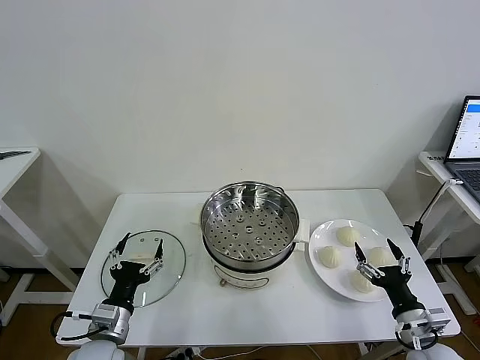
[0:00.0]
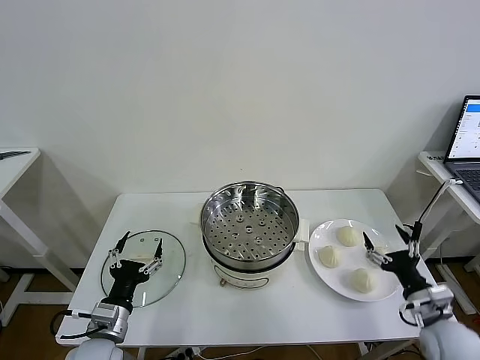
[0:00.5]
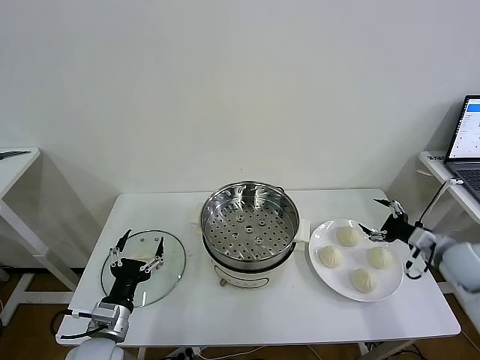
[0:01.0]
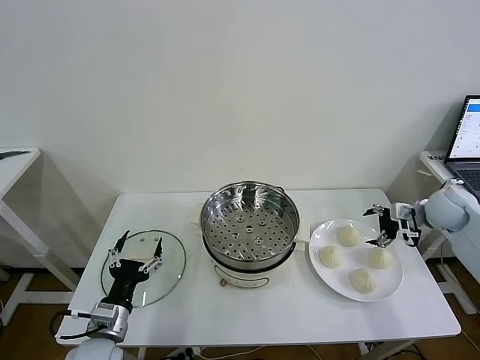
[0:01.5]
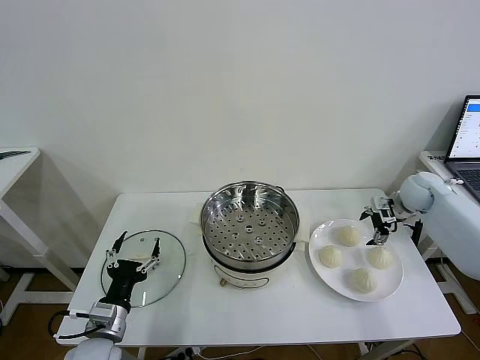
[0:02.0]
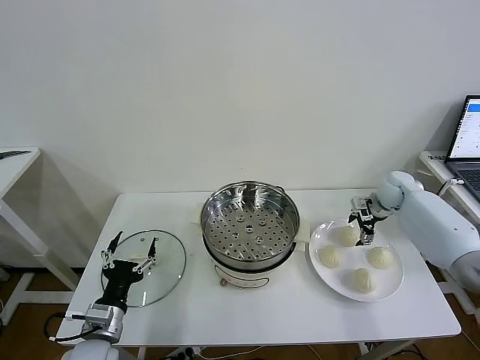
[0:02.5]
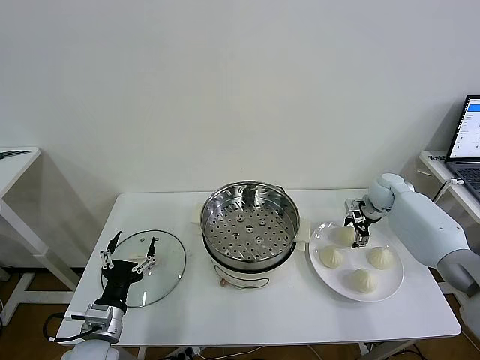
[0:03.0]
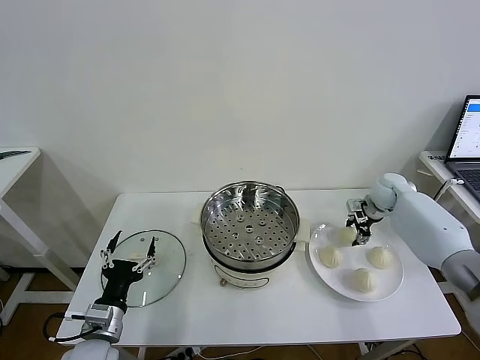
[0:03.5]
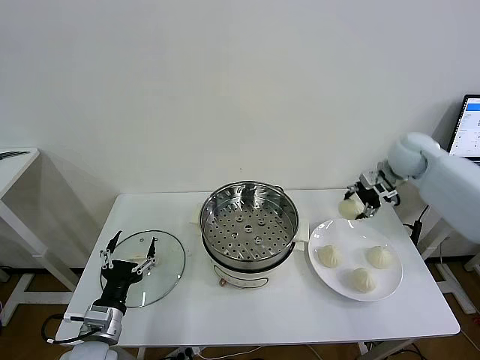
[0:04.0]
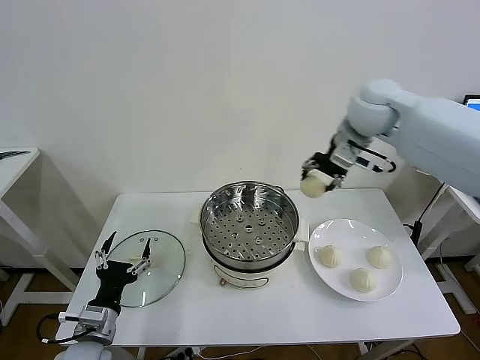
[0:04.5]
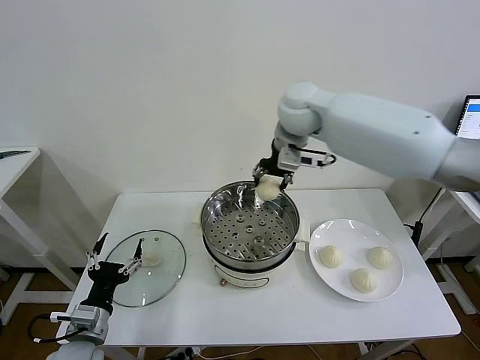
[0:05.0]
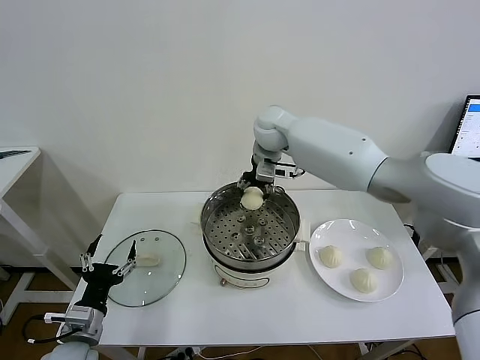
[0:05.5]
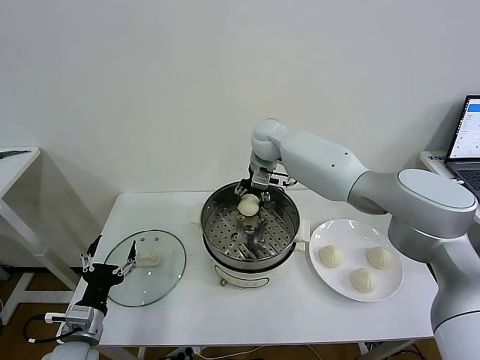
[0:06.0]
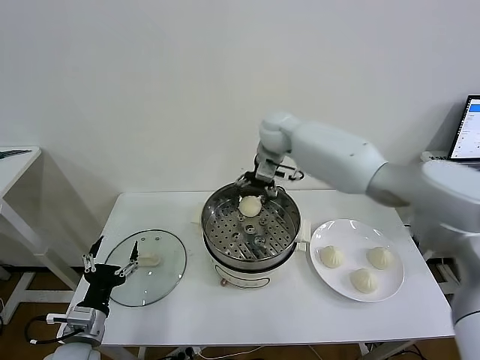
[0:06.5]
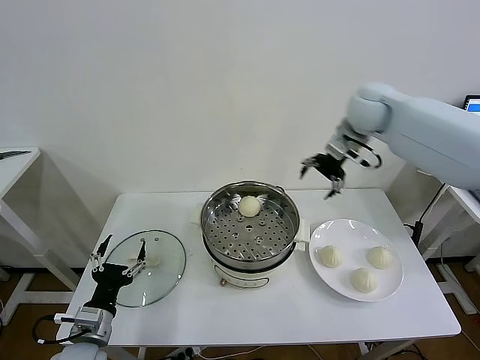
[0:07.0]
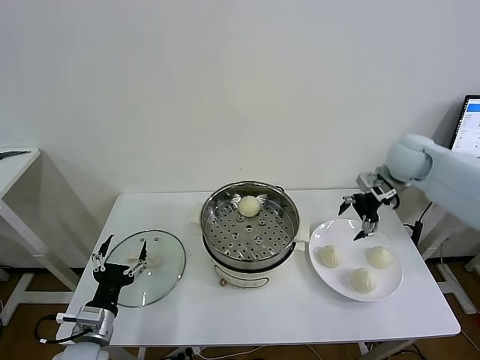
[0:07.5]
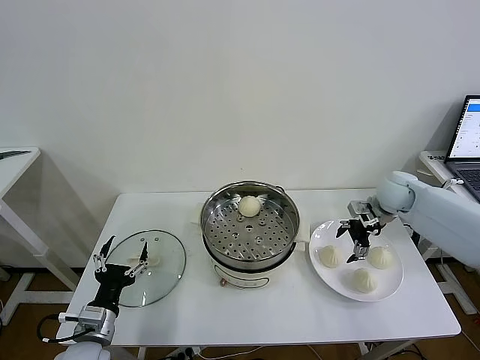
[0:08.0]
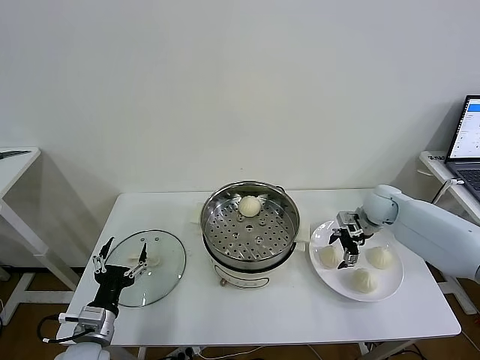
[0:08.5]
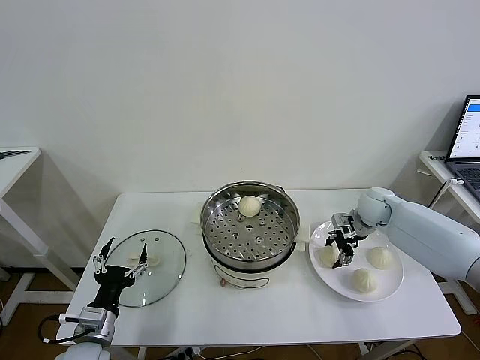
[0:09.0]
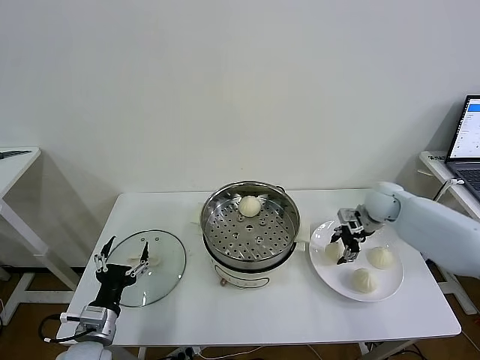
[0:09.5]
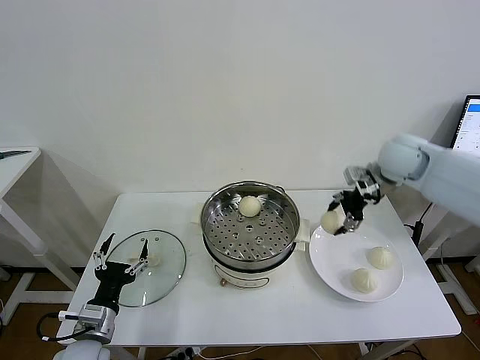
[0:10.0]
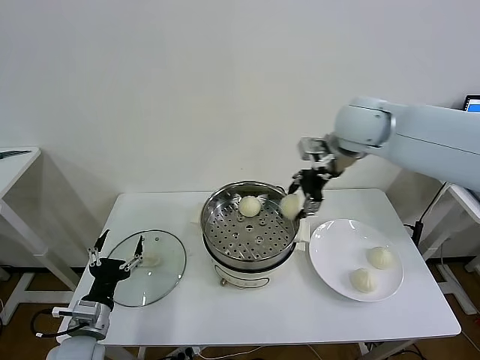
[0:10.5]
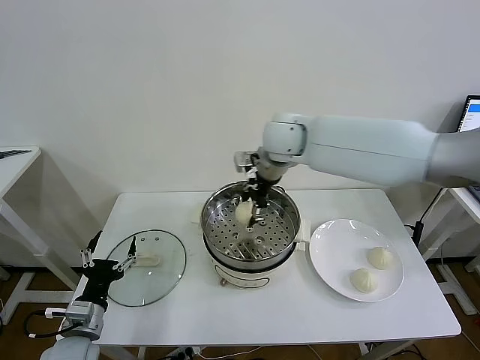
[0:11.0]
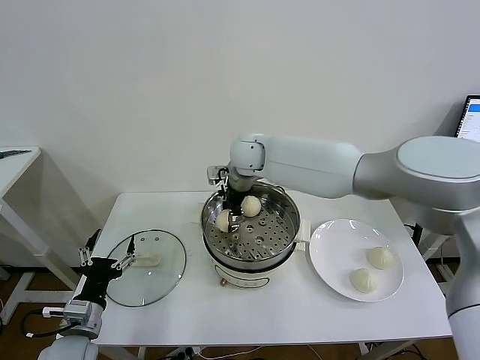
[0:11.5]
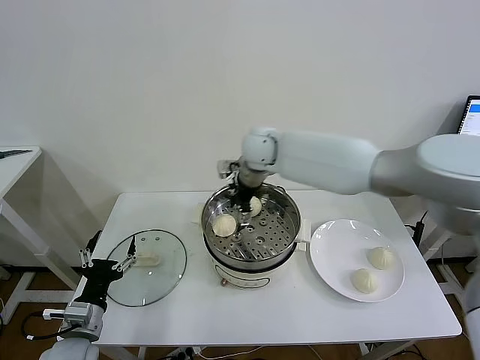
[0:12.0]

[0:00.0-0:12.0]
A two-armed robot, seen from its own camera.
Task of the whole recording: take steamed baozi put them in steamer then cover it.
Step, 0:00.0 to 0:03.0: Grasp the baozi in the plate with right gripper.
Step, 0:03.5 to 0:06.0: Place the baozi on the steamer with right gripper.
Step, 0:06.5 to 0:08.5: Grasp the baozi in the plate with right gripper.
Step, 0:09.0 to 0:11.5: Place the baozi on the steamer with right gripper.
0:02.0 to 0:04.0: The right gripper travels upward and to the left by about 15 cm, and closes.
0:04.0 to 0:06.0: The right gripper is displaced to the left by roughly 30 cm, and opens its fingers.
0:06.0 to 0:08.0: The right gripper goes roughly 30 cm to the right, and opens.
0:08.0 to 0:10.0: The right gripper heads upward, covering approximately 15 cm, and closes its fingers.
0:10.0 to 0:12.0: The right gripper shifts about 25 cm to the left, and opens up.

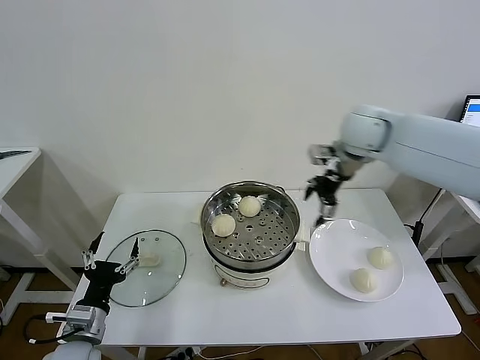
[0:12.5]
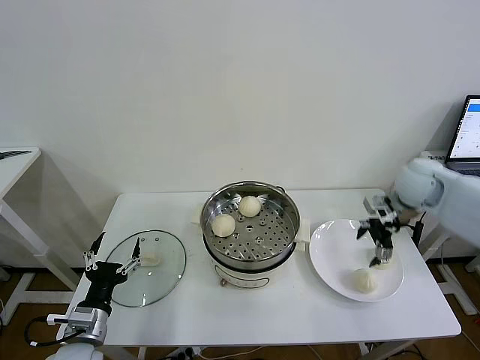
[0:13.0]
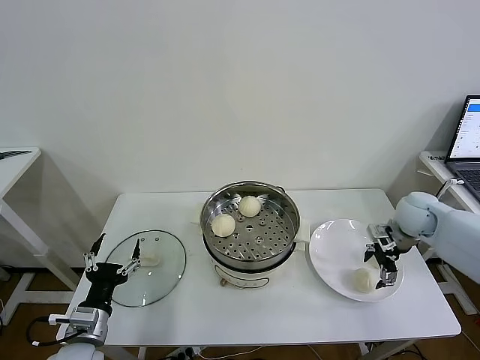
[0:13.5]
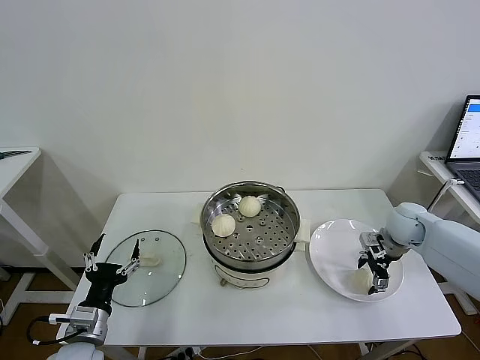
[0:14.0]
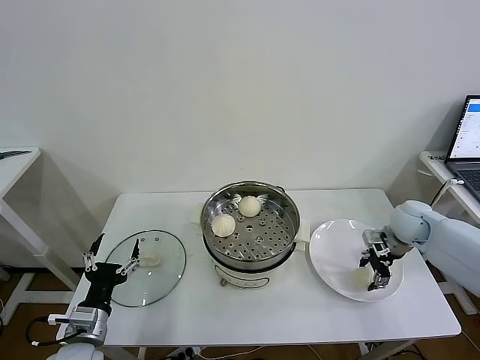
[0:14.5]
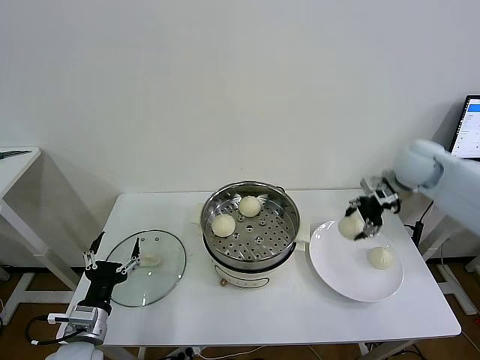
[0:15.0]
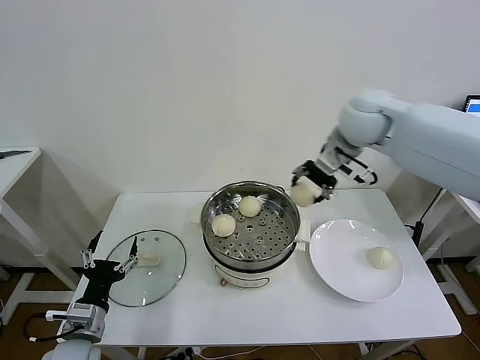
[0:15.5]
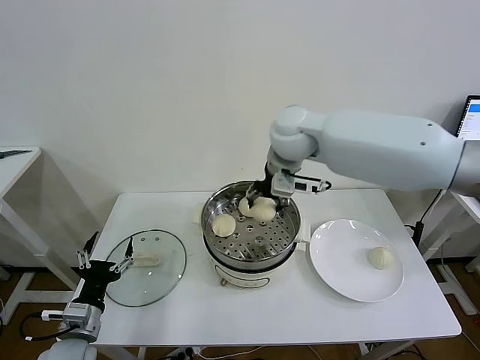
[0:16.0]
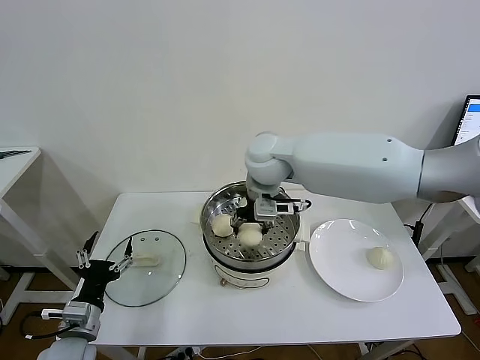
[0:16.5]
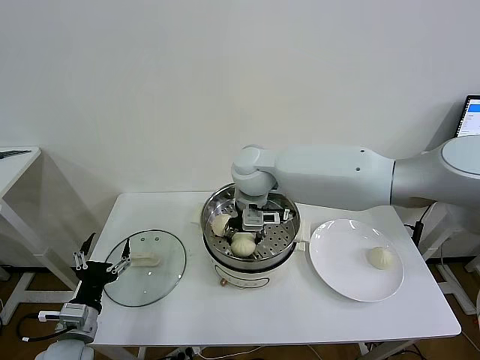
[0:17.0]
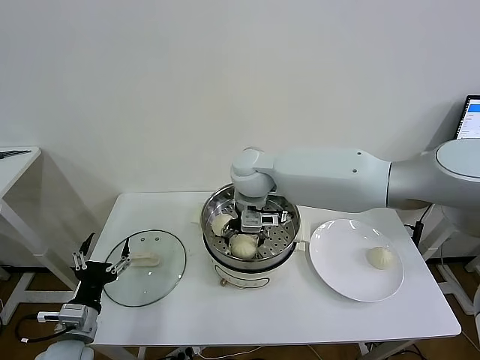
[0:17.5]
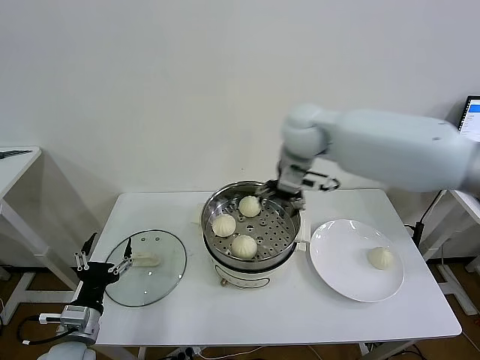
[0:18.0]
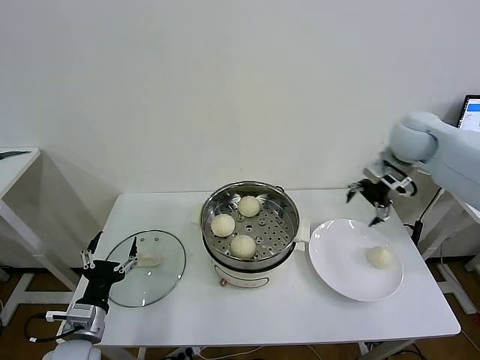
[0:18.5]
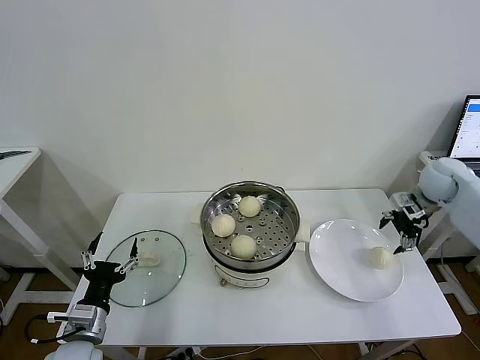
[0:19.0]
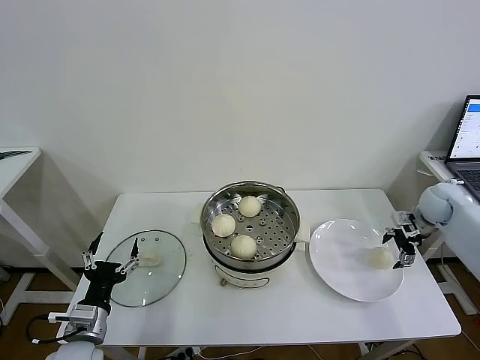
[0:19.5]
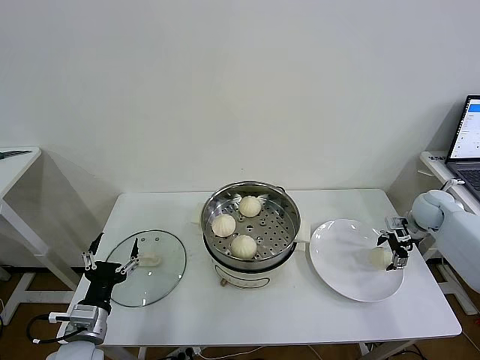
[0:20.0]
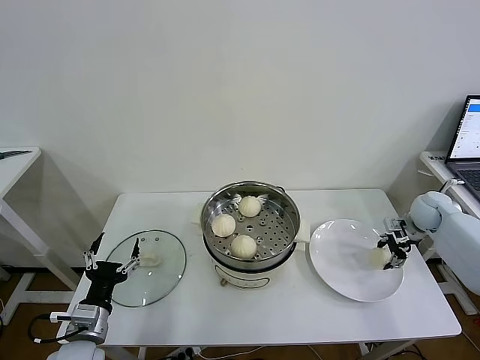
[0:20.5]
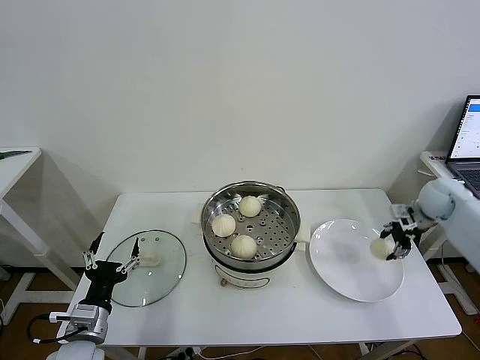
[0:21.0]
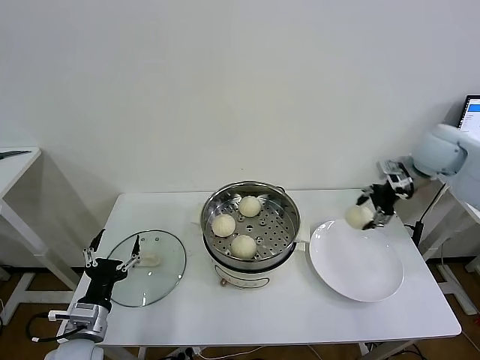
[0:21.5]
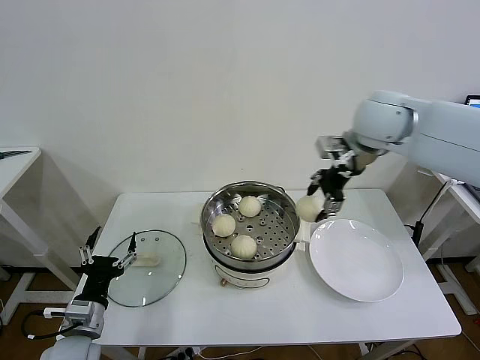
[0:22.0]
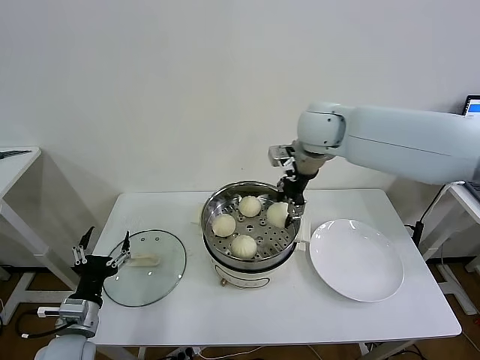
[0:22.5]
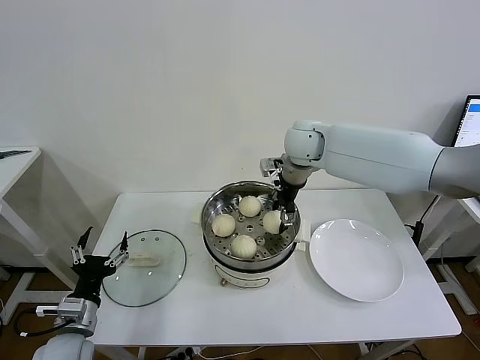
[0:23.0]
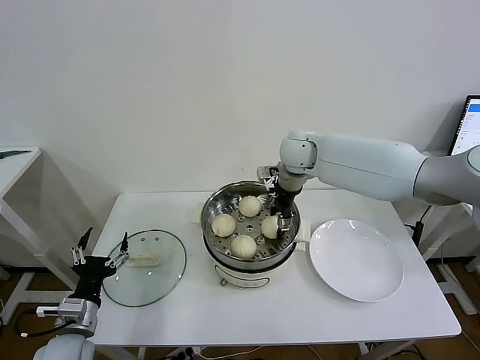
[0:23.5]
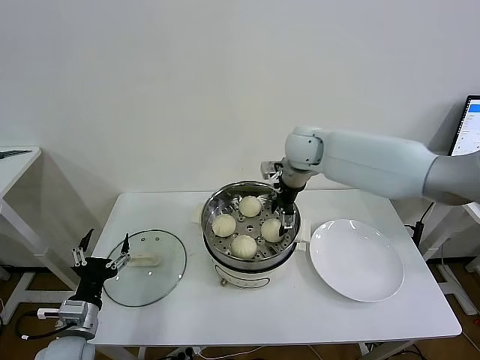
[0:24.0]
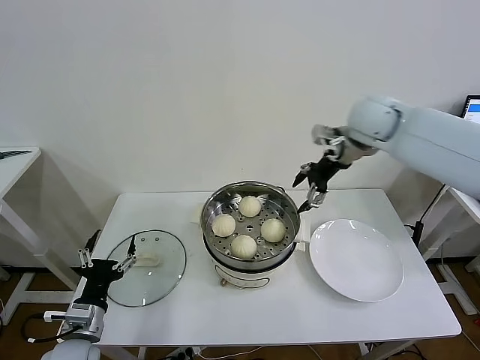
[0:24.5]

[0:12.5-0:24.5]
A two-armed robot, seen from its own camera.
Task of the whole recording: take steamed baozi put them in steamer then cover it.
Step, 0:12.5 to 0:14.0: Grasp the baozi in the plate with right gripper.
Step, 0:14.5 to 0:17.5: Place the baozi on the steamer with right gripper.
Step, 0:18.0 to 0:20.0: Grasp the baozi in the plate with right gripper.
Step, 0:20.5 to 0:23.5: Place the baozi on the steamer with right gripper.
0:12.5 to 0:14.5: The right gripper shifts roughly 25 cm downward and to the right, and closes its fingers.
0:14.5 to 0:16.5: The right gripper shifts approximately 40 cm to the left and upward.
0:16.5 to 0:18.5: The right gripper shifts about 30 cm to the right, and opens.
0:18.5 to 0:20.5: The right gripper is displaced downward and to the right by approximately 25 cm, and closes its fingers.
0:20.5 to 0:22.5: The right gripper goes some 40 cm to the left and upward.
0:22.5 to 0:24.5: The right gripper is displaced to the right by about 10 cm, and opens its fingers.

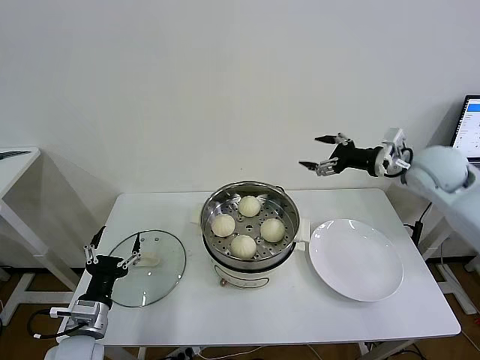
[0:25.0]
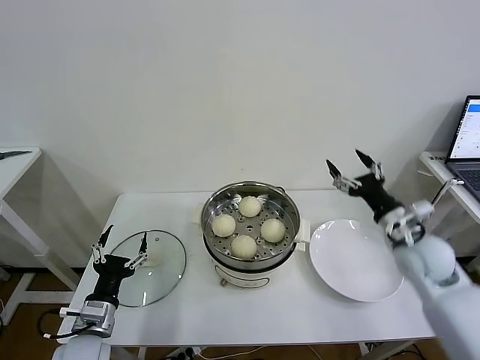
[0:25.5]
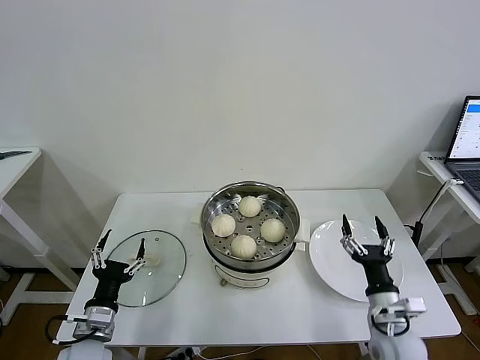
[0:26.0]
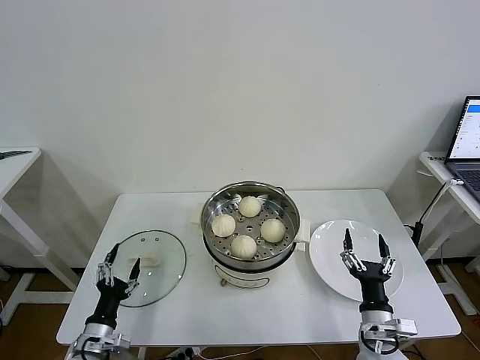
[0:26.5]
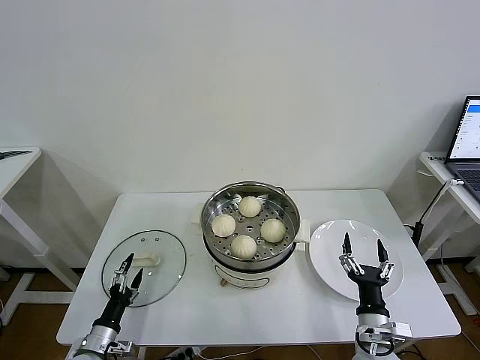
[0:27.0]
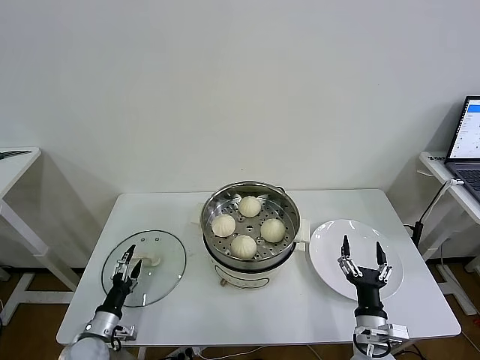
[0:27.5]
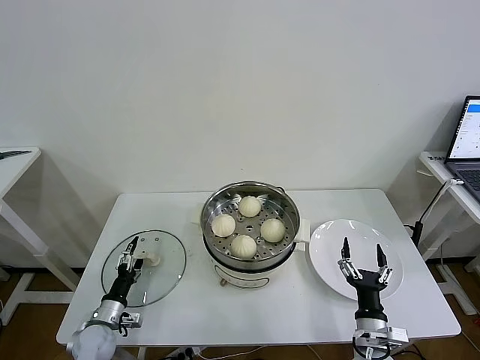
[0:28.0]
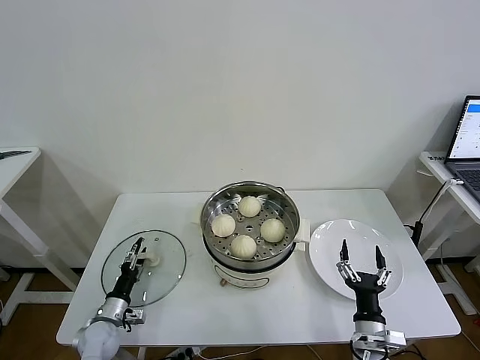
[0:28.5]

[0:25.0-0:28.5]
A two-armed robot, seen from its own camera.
Task of the whole recording: take steamed baozi put them in steamer then cover it.
0:25.0 to 0:27.0: The left gripper shifts about 15 cm downward, while the right gripper travels downward and backward by about 40 cm.
0:27.0 to 0:28.5: The left gripper goes about 10 cm forward.
